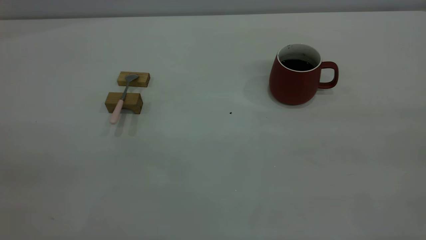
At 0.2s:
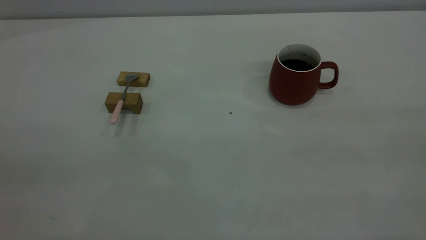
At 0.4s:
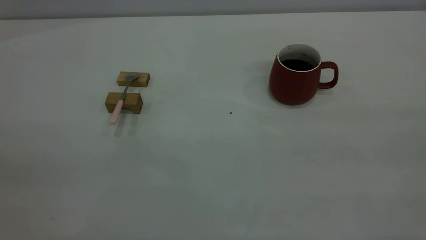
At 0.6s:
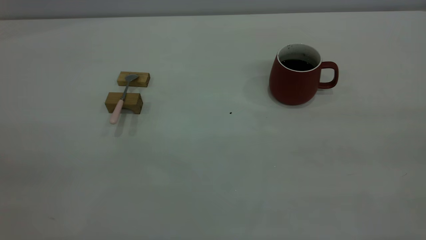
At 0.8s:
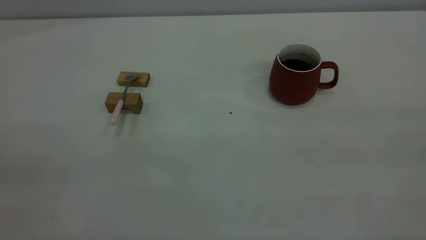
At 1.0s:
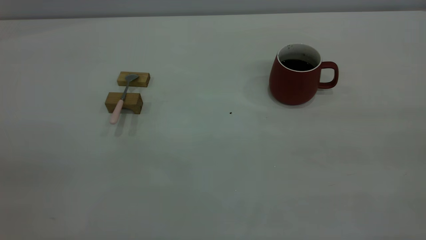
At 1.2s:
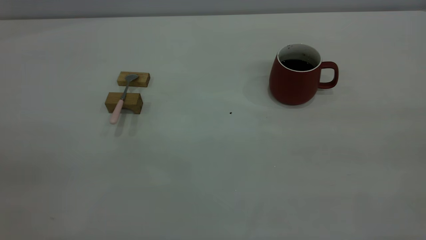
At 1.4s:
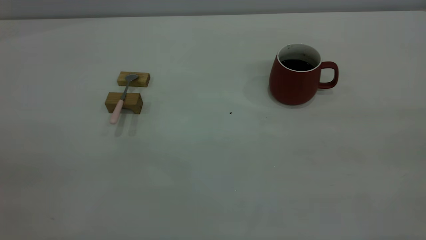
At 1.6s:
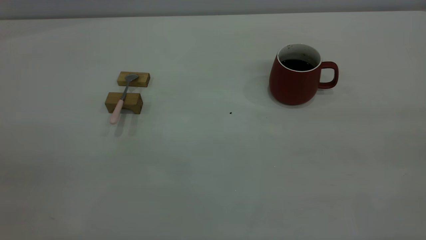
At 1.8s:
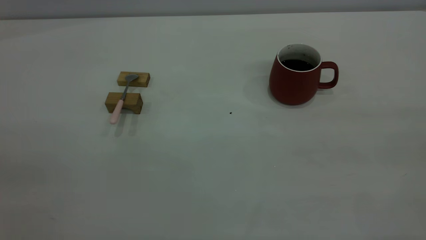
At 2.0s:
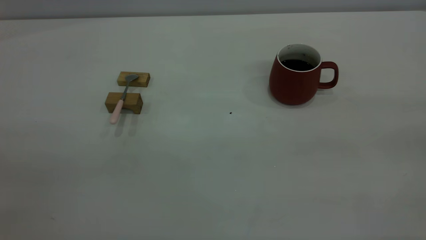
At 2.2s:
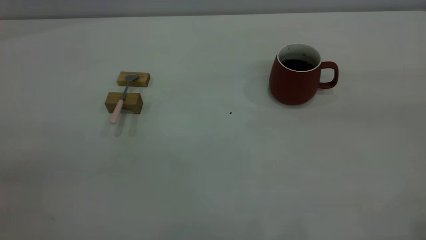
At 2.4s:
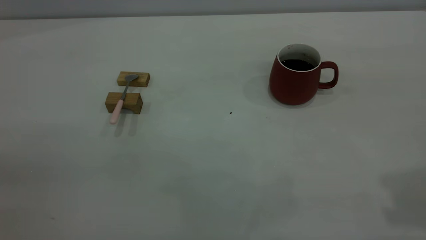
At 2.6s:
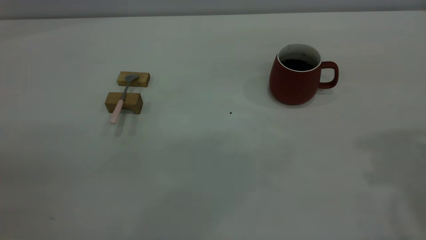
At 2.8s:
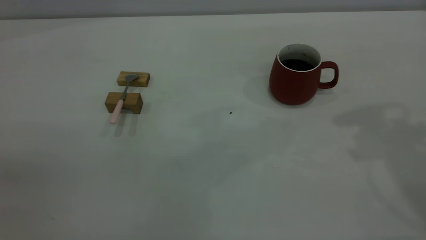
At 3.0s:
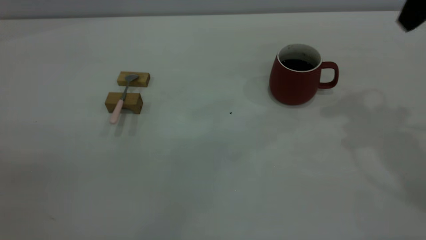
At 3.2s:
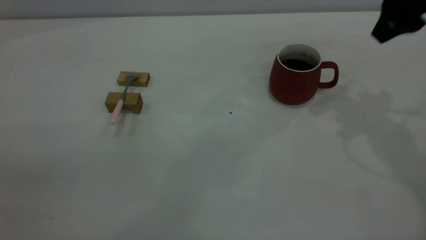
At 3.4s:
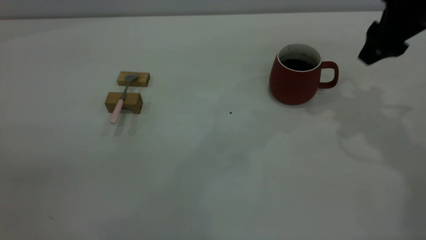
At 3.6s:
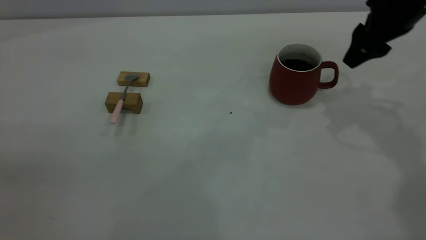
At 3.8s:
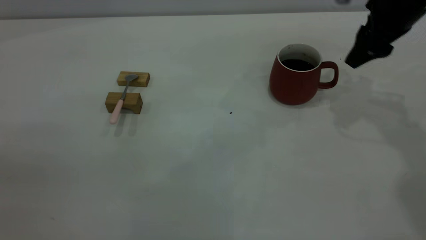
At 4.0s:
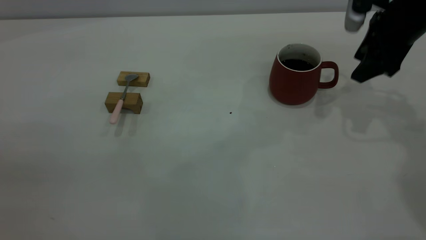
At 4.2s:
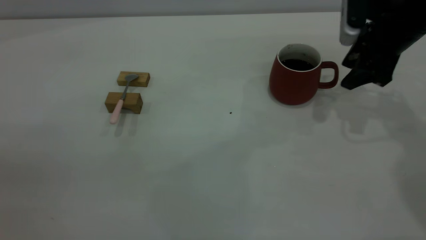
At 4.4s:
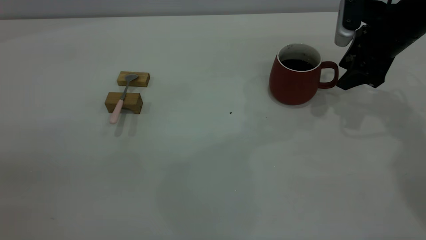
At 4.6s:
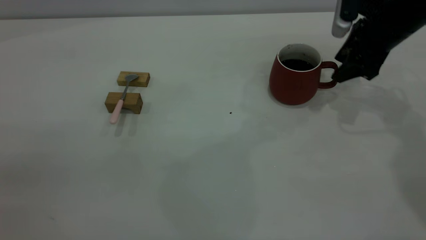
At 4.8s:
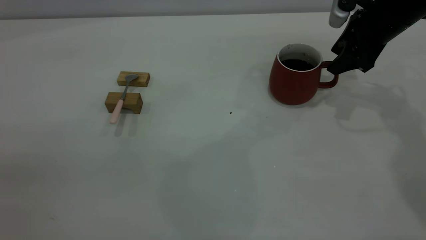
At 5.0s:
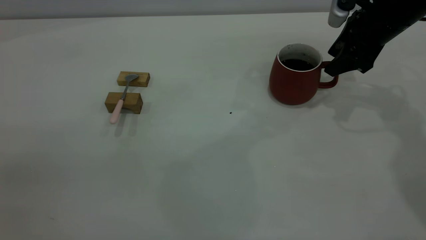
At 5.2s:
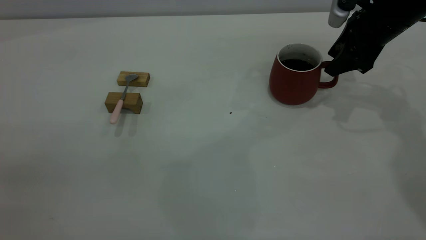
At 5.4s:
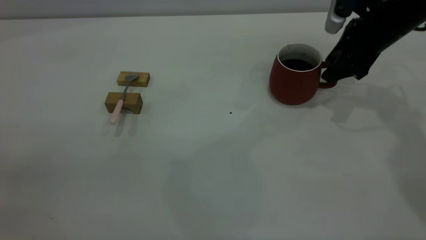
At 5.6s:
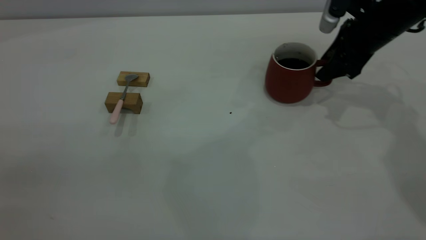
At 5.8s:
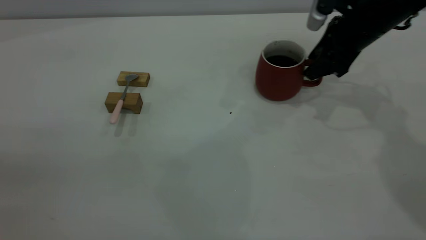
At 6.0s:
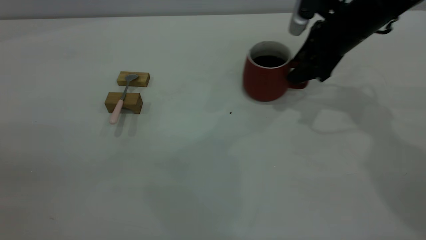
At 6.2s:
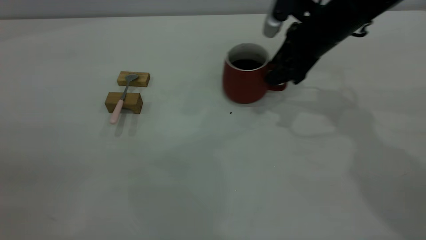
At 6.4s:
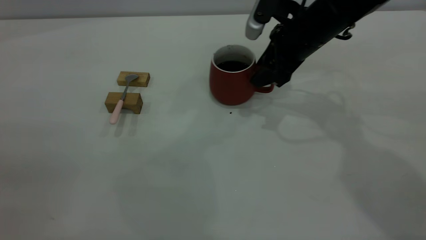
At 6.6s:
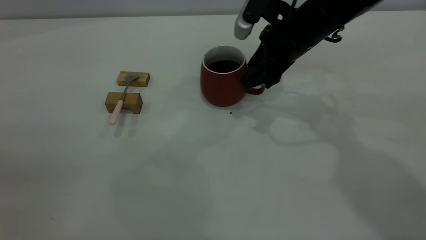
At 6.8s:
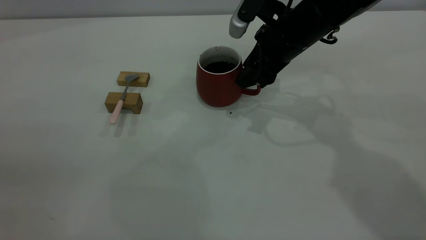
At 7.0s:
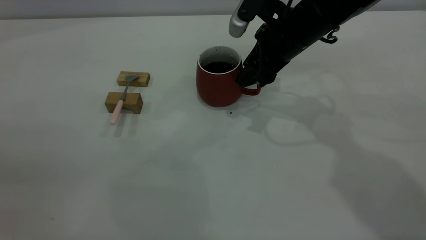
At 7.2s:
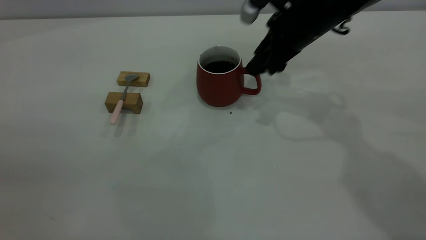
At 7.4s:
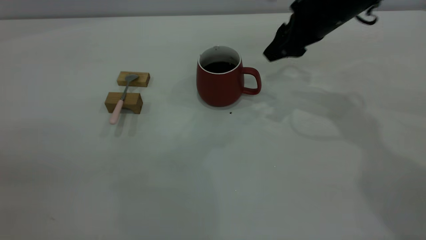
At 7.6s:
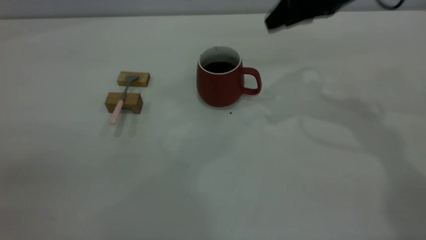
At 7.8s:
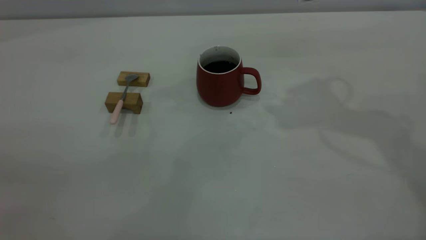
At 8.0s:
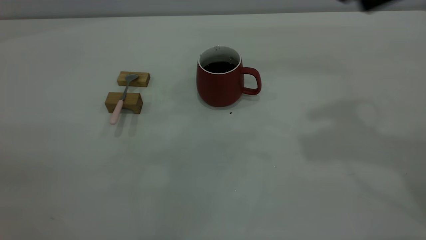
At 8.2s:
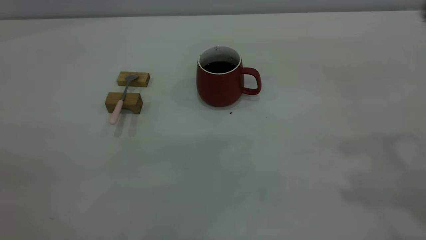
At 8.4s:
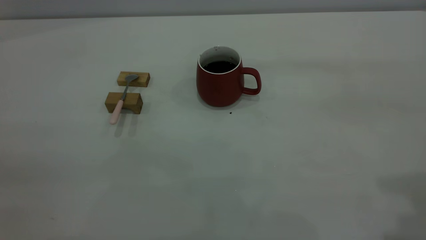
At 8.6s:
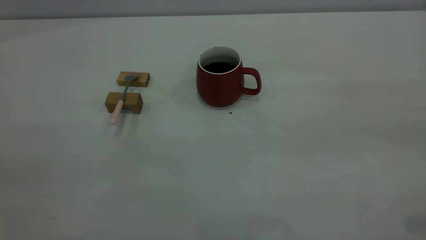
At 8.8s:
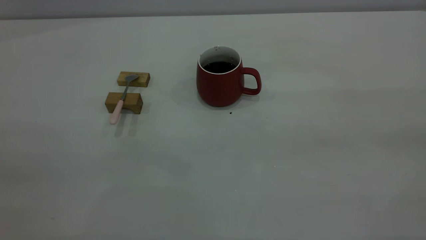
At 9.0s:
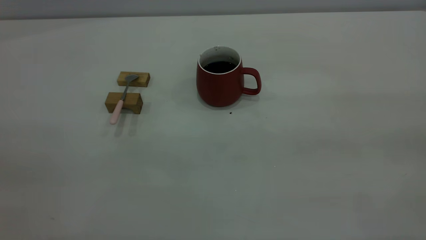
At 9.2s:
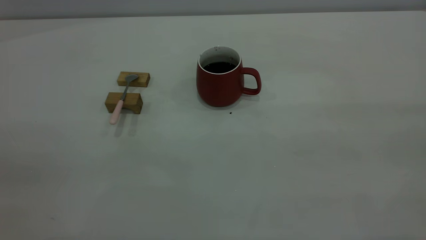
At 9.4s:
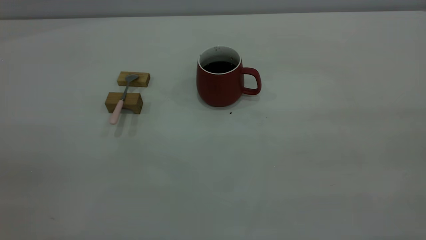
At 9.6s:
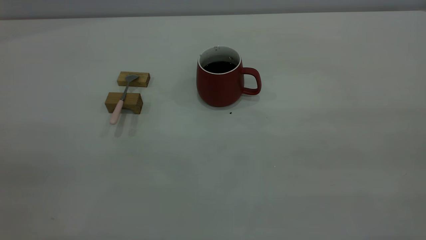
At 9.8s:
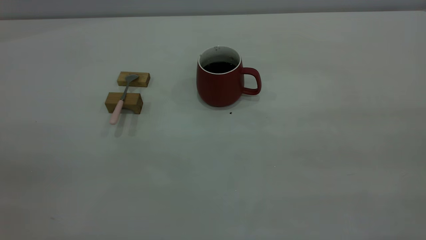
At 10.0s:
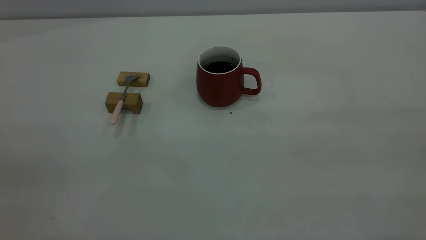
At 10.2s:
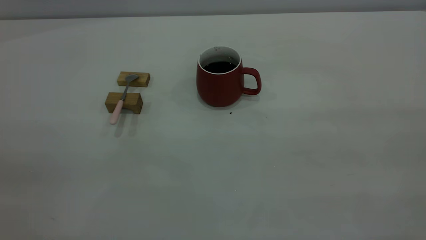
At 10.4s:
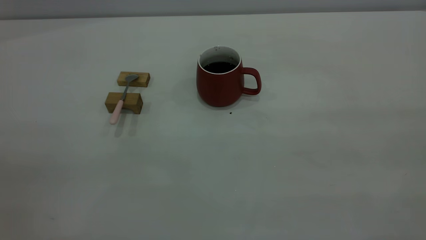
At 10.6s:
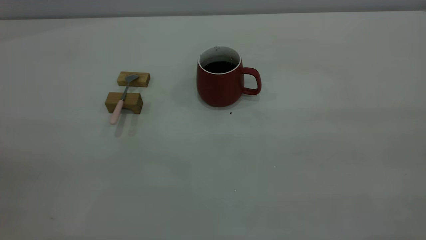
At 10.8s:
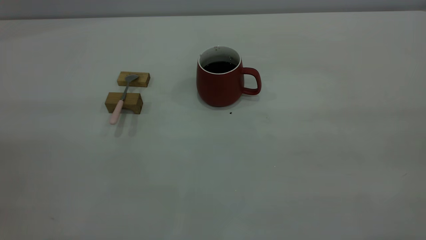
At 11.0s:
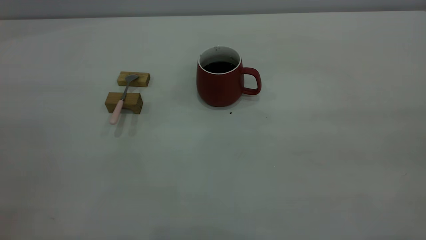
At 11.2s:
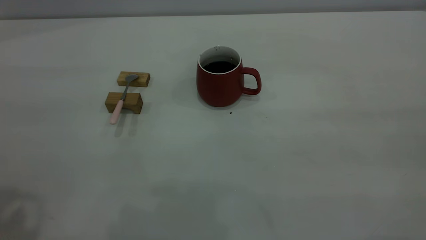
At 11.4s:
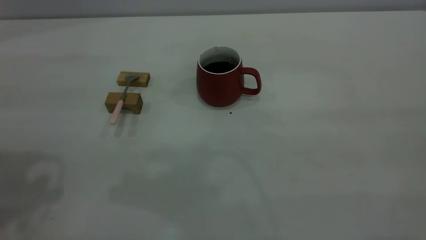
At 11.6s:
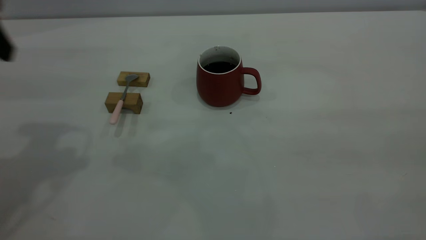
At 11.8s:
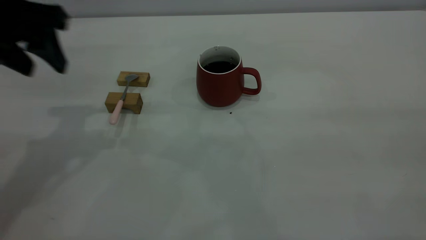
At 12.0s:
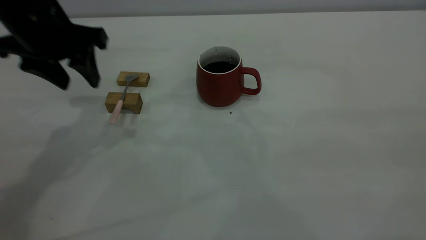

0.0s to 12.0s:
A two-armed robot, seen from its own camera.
Step, 0.0s to 7.4s: Move the cup with coffee to the center of view.
0.0s to 1.6s: Both grippers stay put.
1.6s to 3.0s: The right gripper shifts approximately 30 cm forward, and opens its fingers.
3.0s to 4.4s: The right gripper is displaced downward and forward by some 15 cm, and closes.
4.4s to 6.0s: The right gripper travels to the left by some 5 cm.
6.0s to 7.6s: The right gripper is displaced upward by about 10 cm.
7.6s to 9.0s: The right gripper travels backward by about 35 cm.
10.4s to 12.0s: The left gripper shifts some 40 cm forward and downward.

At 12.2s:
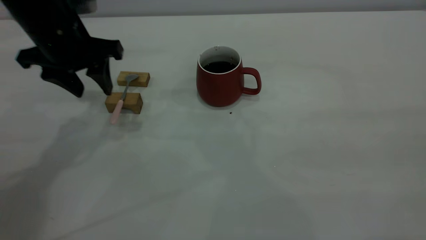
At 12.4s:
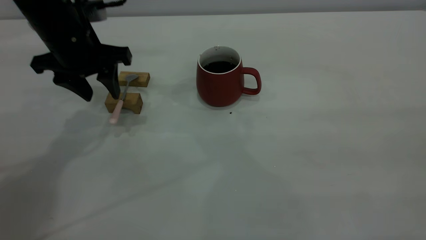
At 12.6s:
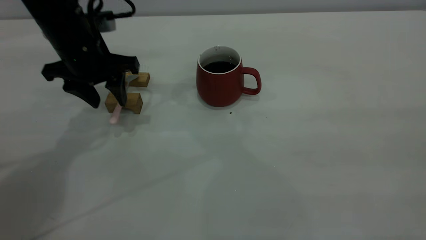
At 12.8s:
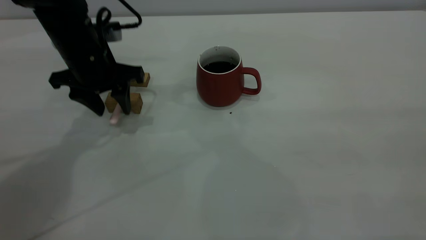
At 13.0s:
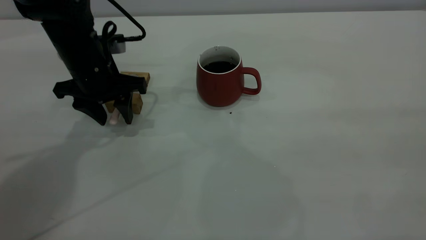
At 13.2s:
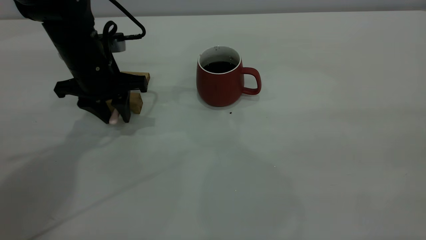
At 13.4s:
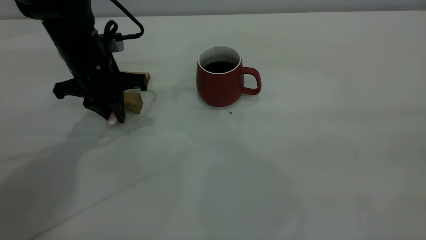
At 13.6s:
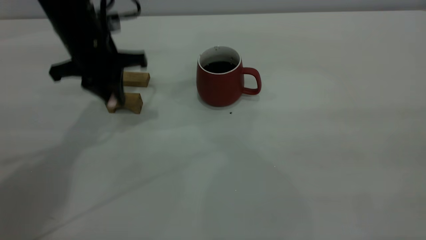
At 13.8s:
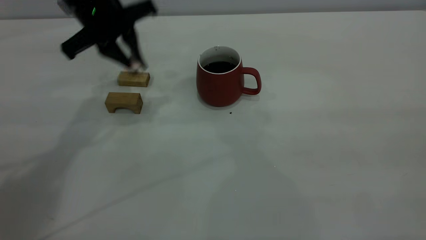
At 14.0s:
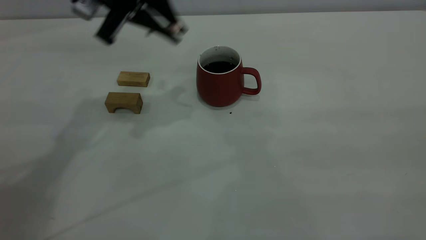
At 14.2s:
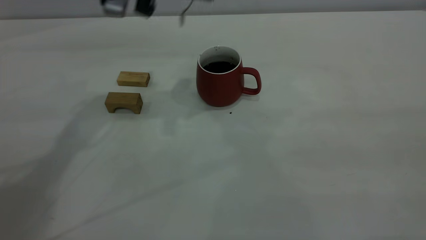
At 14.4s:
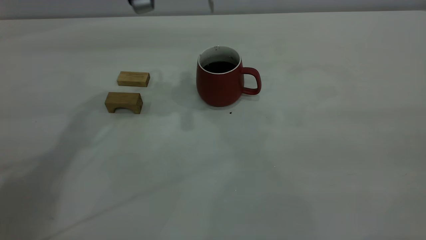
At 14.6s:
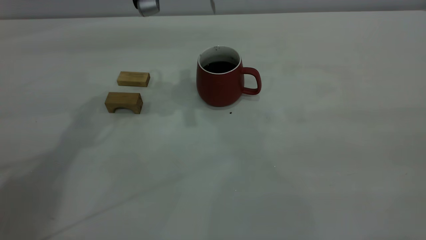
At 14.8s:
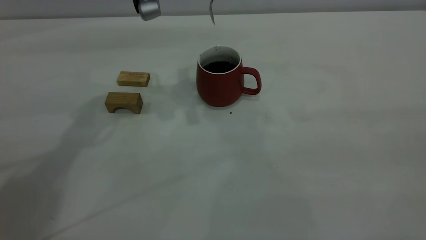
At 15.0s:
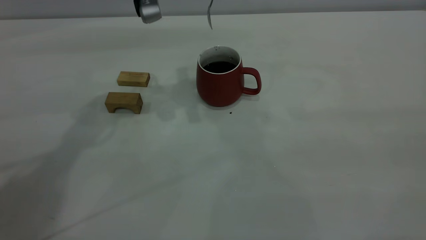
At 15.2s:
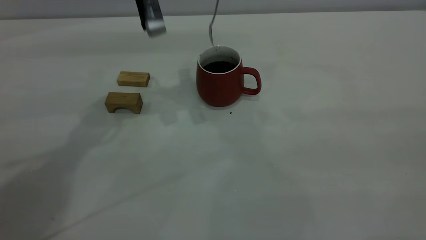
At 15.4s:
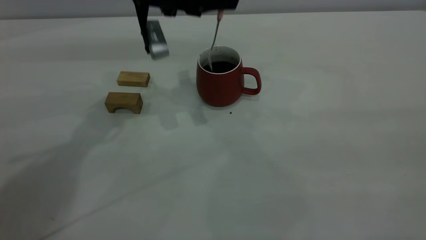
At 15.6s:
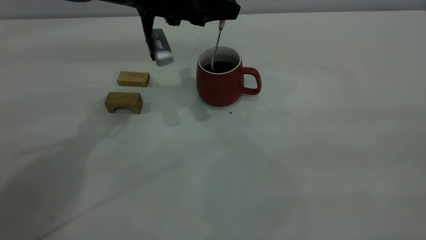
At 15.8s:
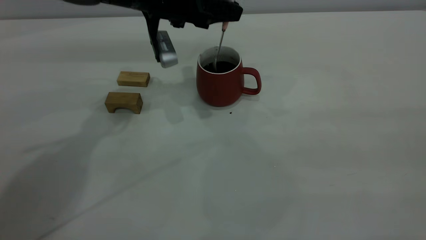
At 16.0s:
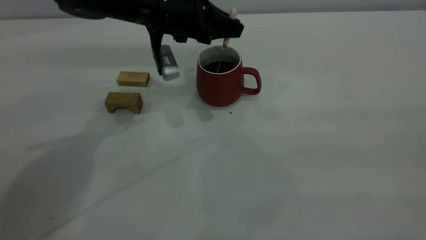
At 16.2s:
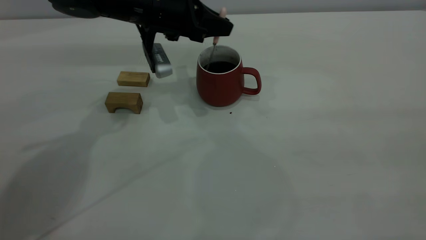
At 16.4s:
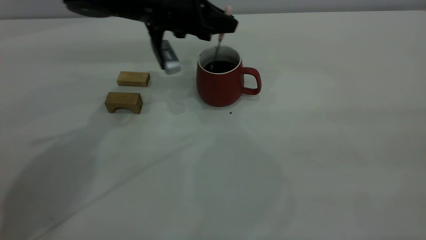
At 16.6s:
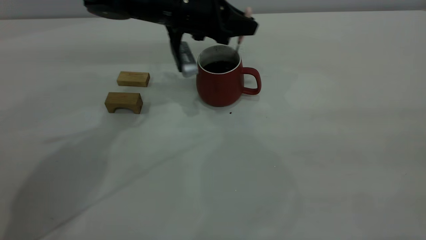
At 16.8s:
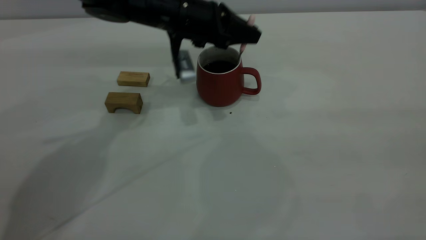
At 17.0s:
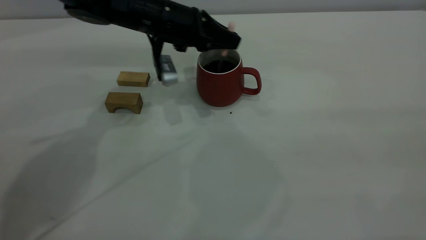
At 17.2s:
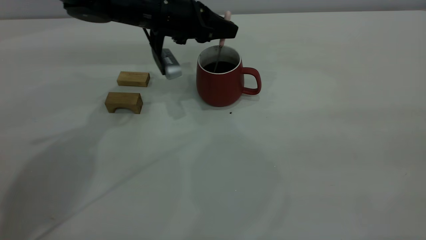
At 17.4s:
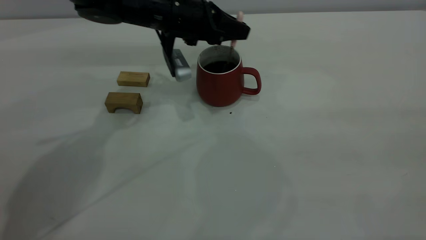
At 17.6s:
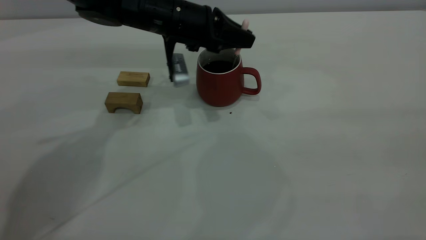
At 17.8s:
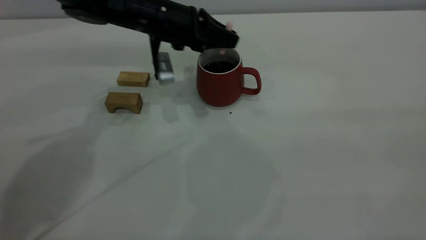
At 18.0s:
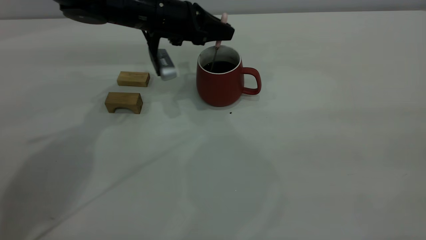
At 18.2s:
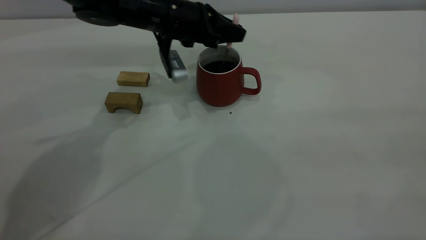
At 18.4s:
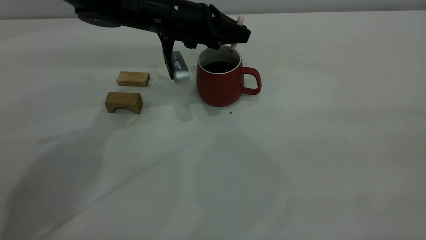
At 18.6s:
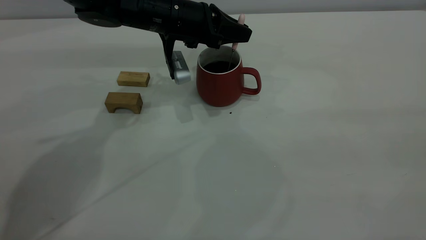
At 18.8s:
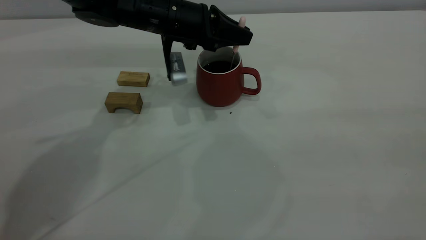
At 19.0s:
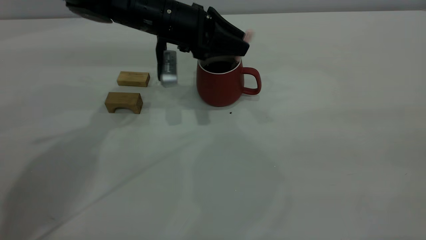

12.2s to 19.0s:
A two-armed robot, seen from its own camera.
12.2s to 13.6s: The left gripper closes its fingers.
13.6s to 15.0s: The left gripper travels upward and to the right by roughly 10 cm.
15.0s to 16.2s: The left gripper goes about 10 cm downward.
16.2s to 17.6s: The grippers stay close to where they were, moving slightly.
17.6s to 19.0s: The left gripper opens up.
